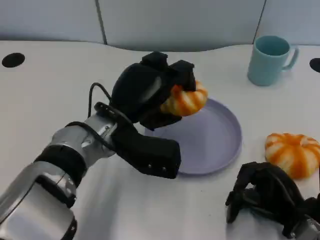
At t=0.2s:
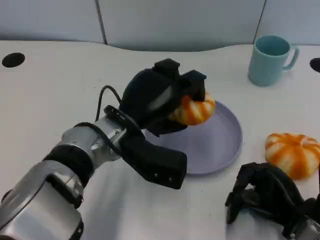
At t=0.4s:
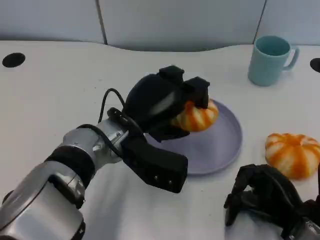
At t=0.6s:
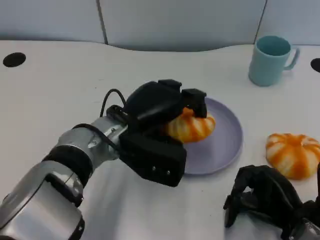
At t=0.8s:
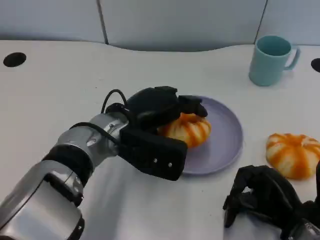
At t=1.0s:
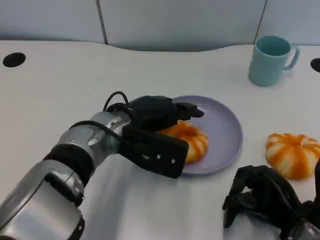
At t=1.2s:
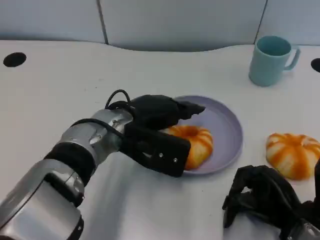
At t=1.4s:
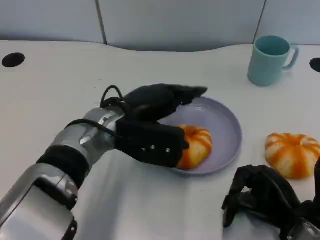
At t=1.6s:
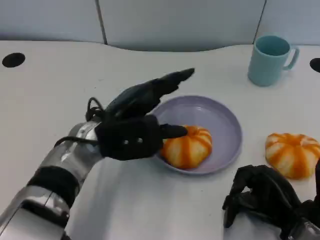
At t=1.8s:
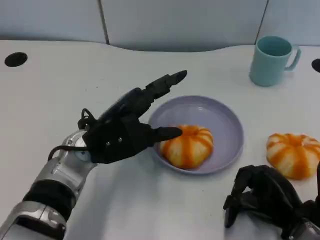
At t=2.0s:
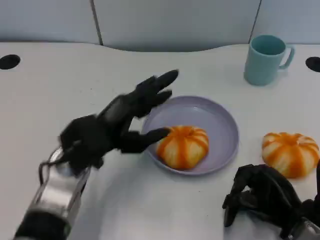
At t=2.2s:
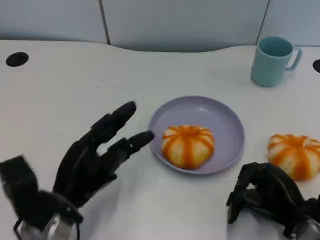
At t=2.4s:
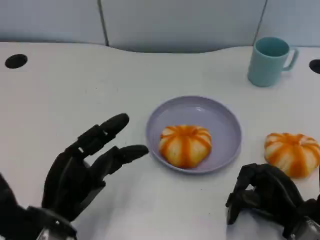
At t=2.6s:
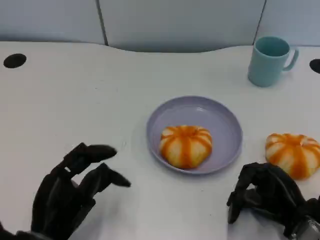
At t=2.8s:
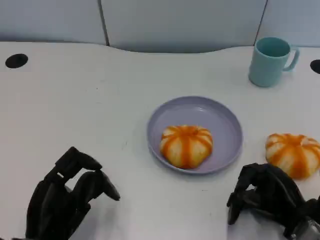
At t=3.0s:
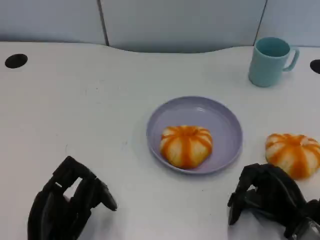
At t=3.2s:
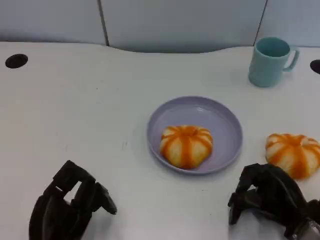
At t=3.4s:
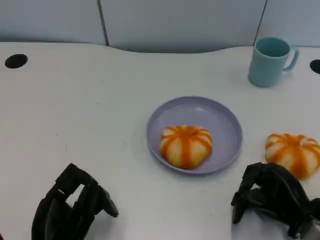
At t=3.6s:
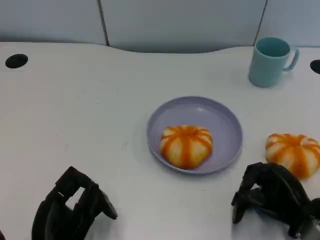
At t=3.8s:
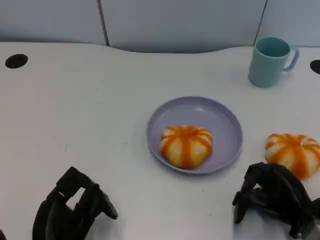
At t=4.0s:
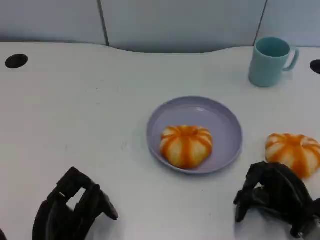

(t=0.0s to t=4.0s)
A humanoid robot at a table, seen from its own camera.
Task of the whole recording: Grasp the bread from the table and place it into the plate.
t=1.4s - t=2.6s: The left hand shifts about 20 cm backward, to the left and downward.
t=2.6s - t=4.0s: The hands move only a little.
